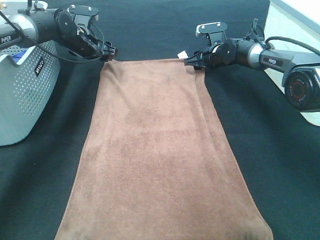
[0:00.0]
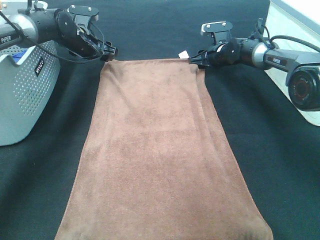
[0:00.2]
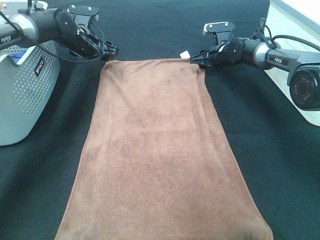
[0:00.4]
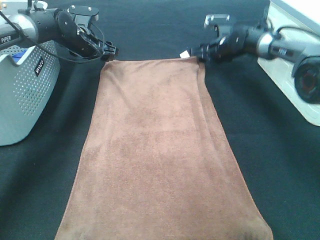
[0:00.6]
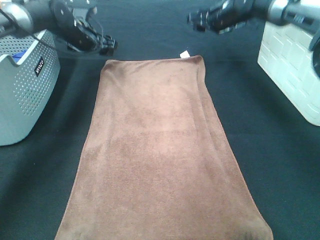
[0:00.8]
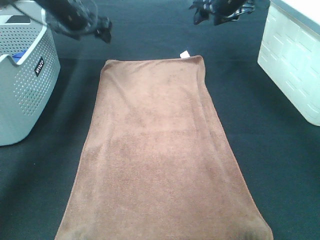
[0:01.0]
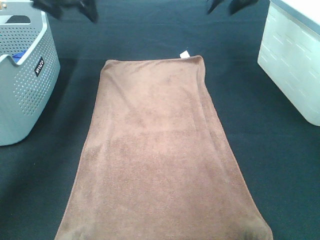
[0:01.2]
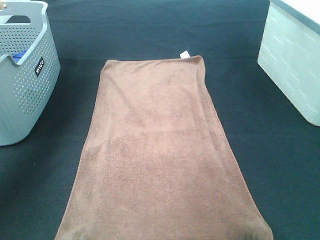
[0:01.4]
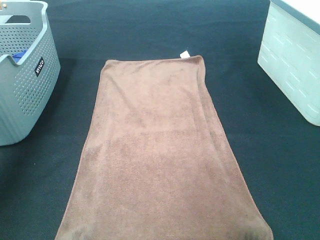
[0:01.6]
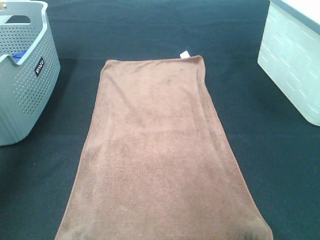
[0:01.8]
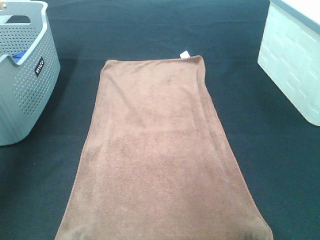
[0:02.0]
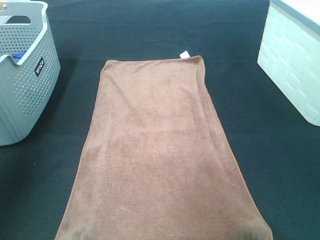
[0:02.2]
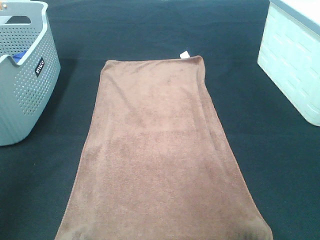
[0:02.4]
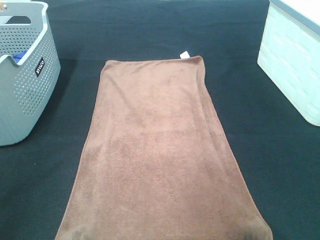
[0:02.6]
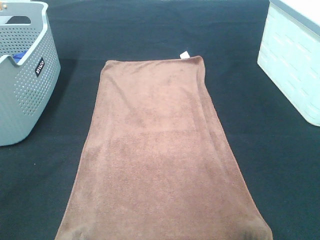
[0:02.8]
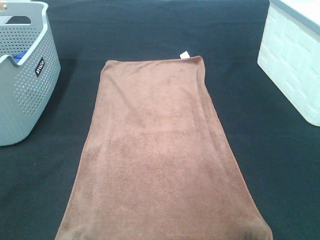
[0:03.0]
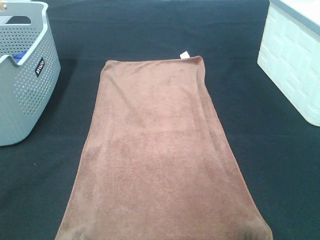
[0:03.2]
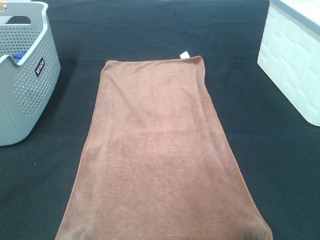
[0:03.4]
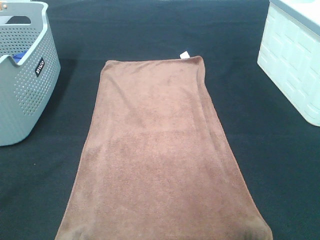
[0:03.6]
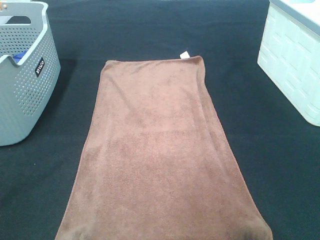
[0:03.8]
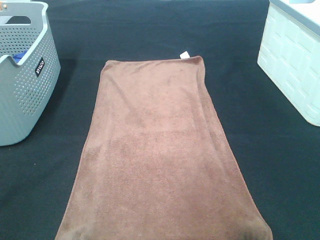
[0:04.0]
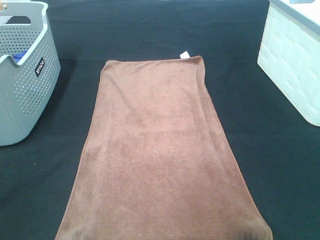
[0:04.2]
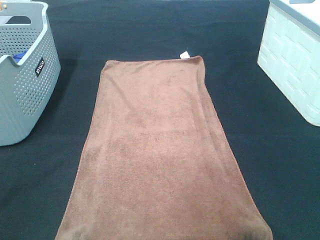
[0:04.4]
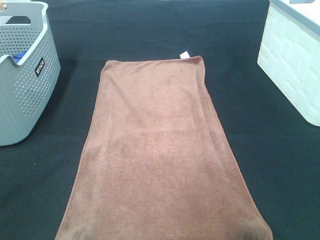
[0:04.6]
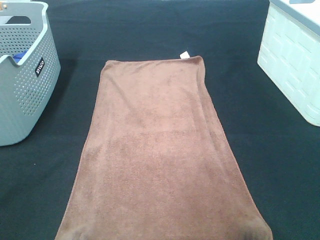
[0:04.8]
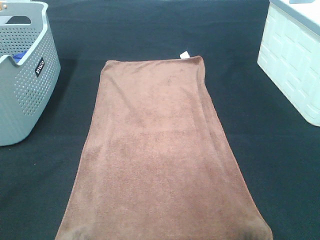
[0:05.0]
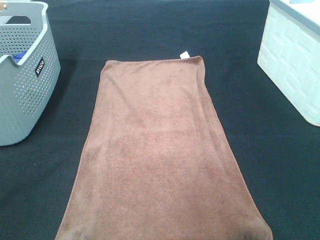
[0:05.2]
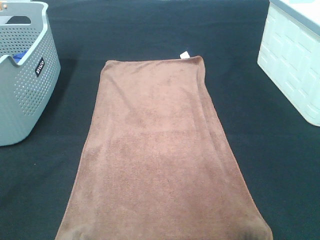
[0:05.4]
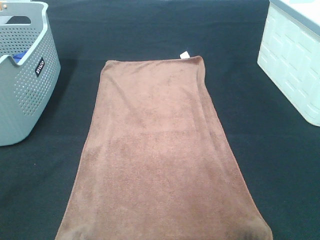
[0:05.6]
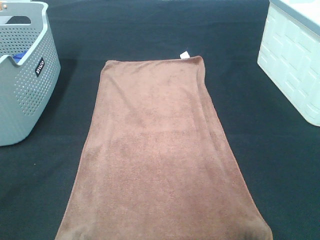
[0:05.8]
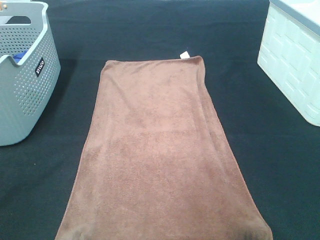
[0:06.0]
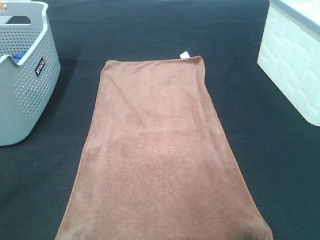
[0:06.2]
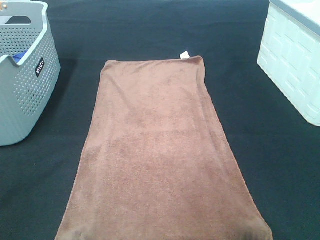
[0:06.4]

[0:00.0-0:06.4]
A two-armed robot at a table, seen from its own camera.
Task of the whole recording: Remove the towel and place it.
0:00.0 to 0:01.6: The right gripper goes roughly 35 cm upward and backward. The left gripper moves upward, to the left and backward, about 30 cm.
0:01.6 to 0:03.2: The two grippers go some 50 cm backward.
0:04.8 to 0:06.4: Both grippers stay about where they are.

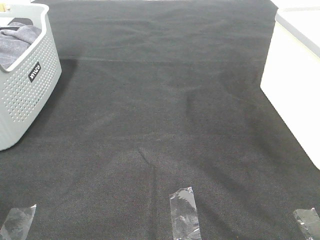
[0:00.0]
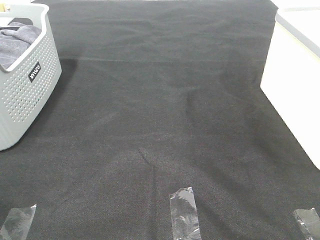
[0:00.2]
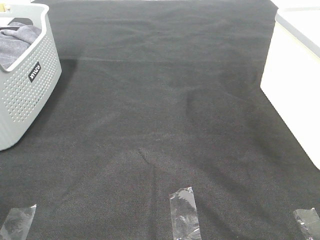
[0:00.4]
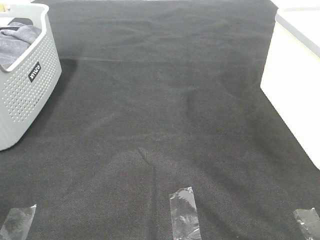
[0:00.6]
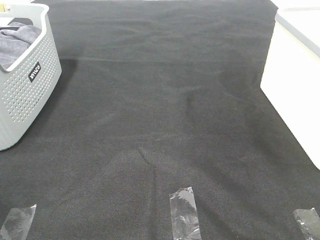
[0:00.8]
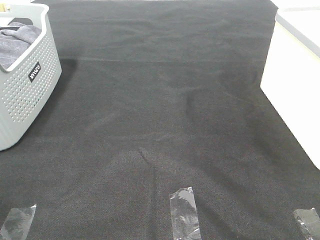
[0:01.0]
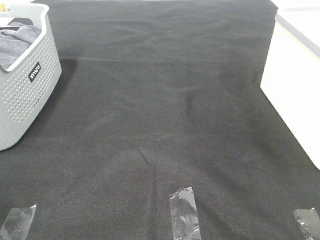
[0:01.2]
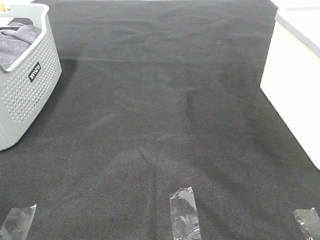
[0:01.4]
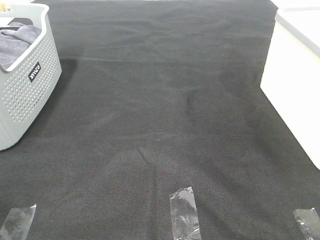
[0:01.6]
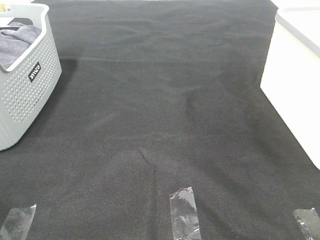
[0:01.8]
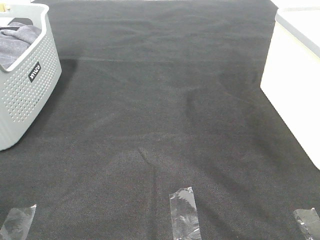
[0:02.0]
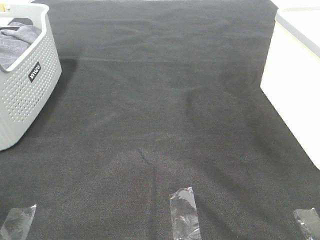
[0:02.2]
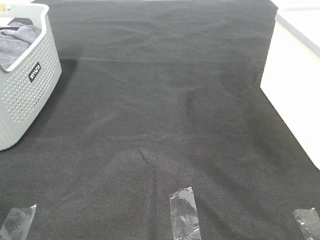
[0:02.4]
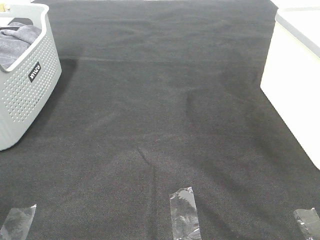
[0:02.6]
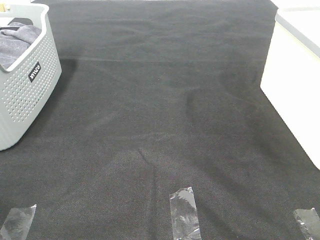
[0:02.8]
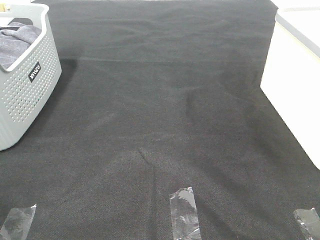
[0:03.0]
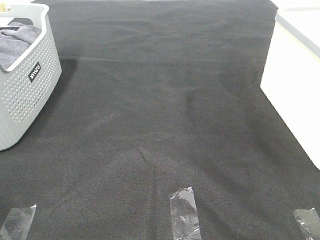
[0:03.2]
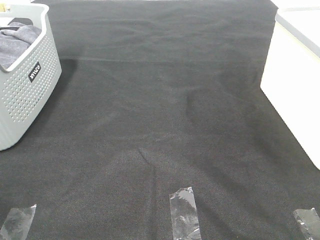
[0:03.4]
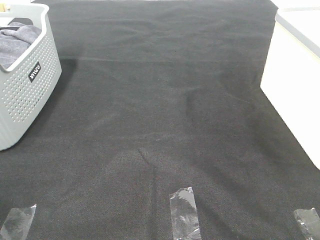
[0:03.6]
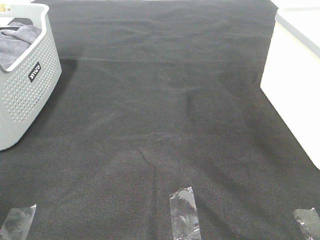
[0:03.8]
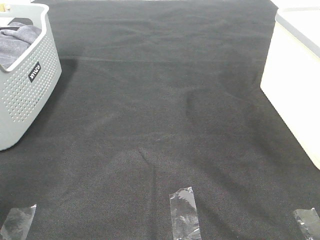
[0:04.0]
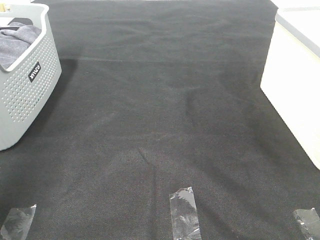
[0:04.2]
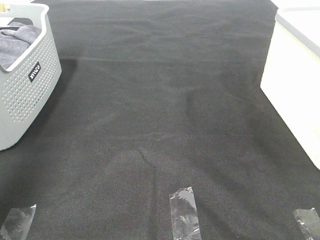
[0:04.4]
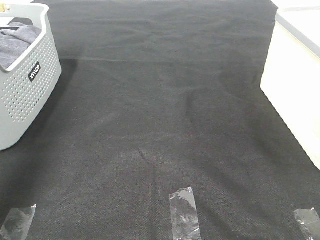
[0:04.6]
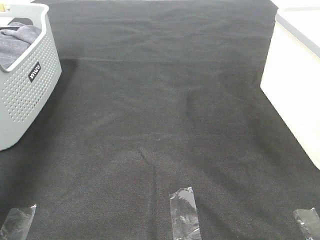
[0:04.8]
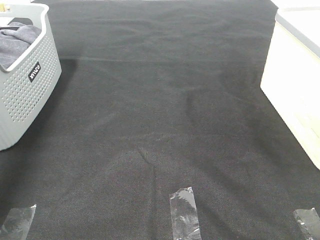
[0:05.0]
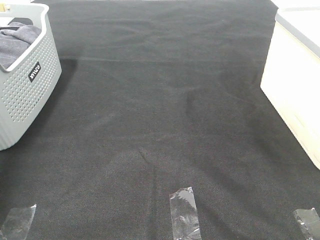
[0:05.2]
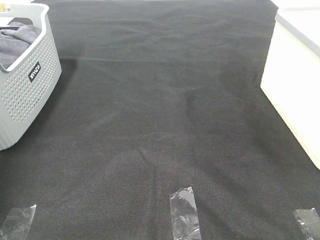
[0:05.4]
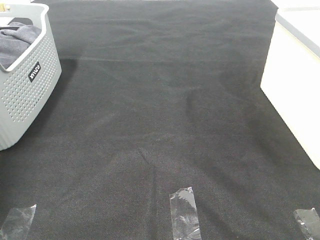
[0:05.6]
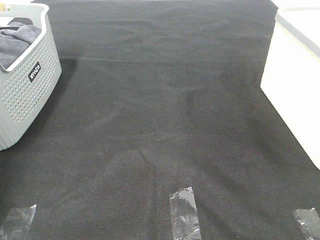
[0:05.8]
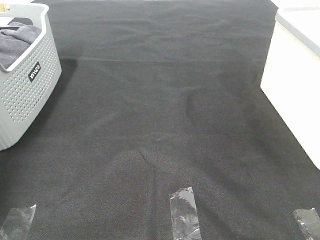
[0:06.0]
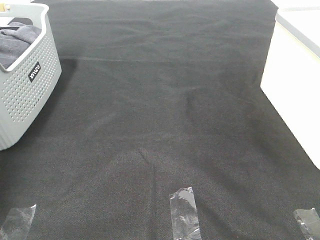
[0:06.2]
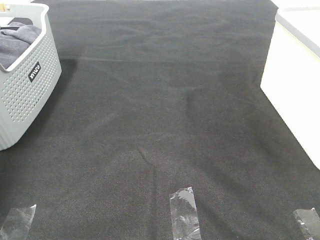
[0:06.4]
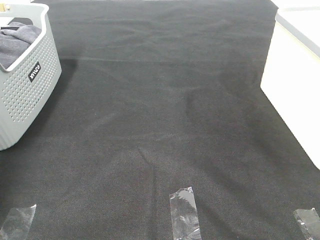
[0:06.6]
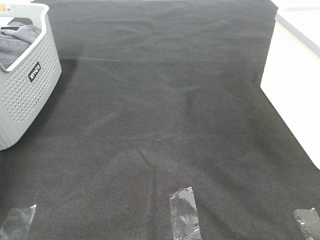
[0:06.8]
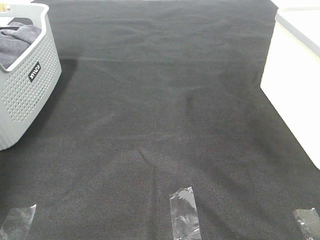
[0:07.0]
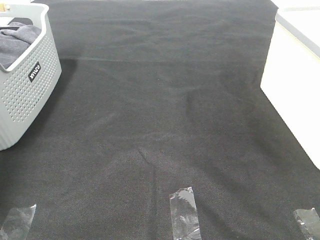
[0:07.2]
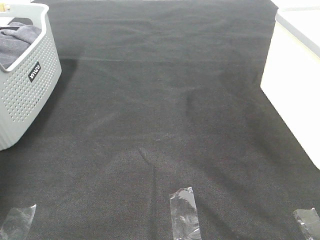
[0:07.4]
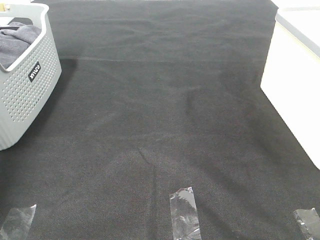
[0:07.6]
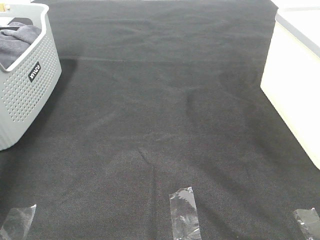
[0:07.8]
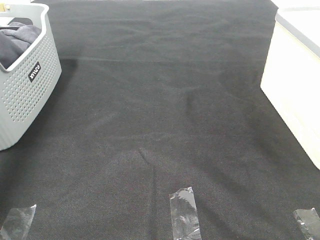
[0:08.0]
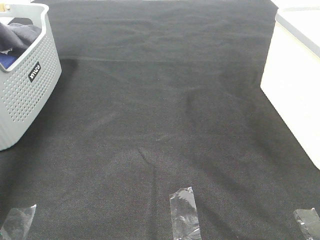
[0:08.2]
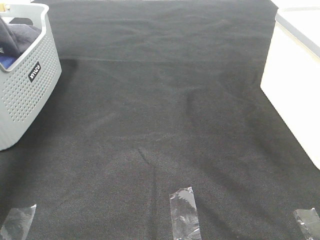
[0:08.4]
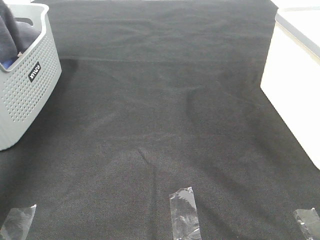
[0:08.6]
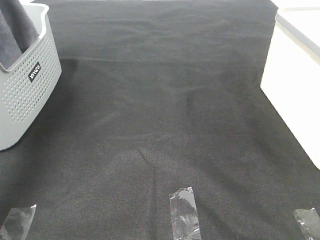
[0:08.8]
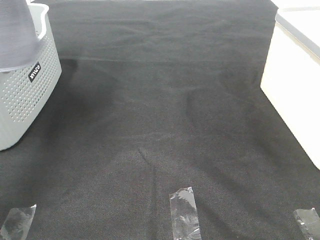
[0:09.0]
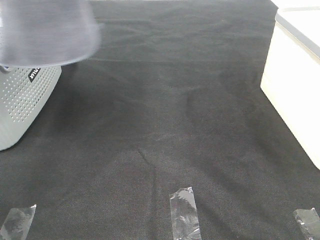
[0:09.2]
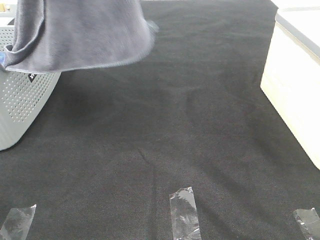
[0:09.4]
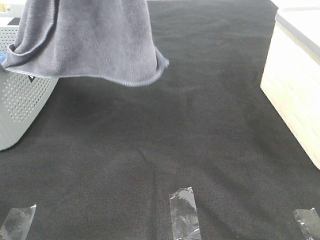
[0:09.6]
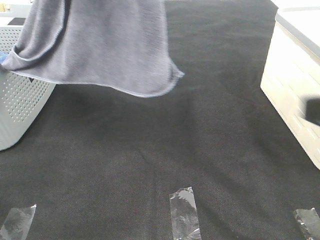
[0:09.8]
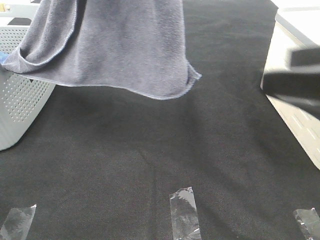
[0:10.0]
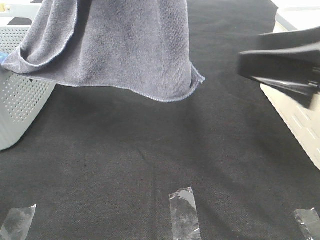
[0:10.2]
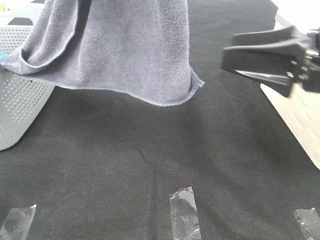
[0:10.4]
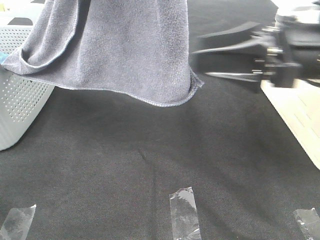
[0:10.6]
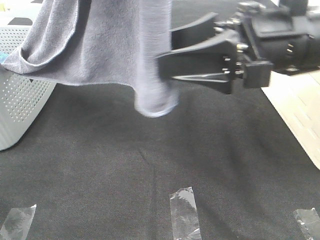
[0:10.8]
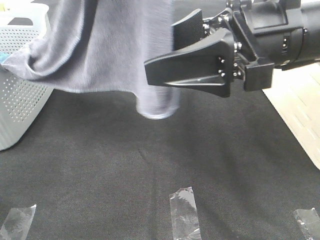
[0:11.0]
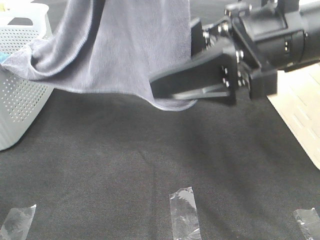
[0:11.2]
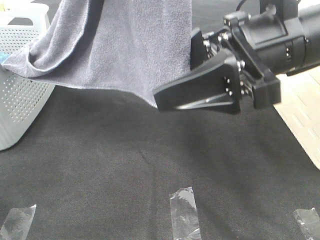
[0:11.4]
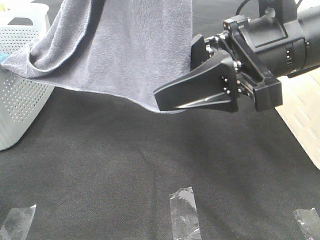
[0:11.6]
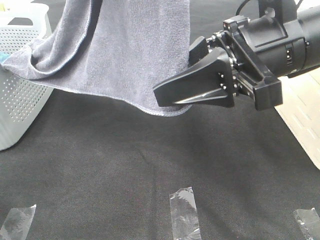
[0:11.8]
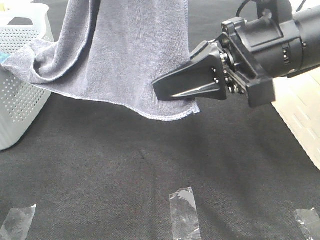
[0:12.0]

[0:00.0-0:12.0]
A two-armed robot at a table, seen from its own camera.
Task of the whole recording: Remove the towel and place it.
0:00.0 to 0:03.0: Both grippers stay about where they are.
0:03.0 to 0:04.4: The left gripper goes roughly 25 cm forward and upward.
0:04.4 to 0:06.0: The left gripper is displaced forward and downward by some 35 cm.
0:07.6 to 0:09.0: The left gripper moves upward, backward and to the right, some 35 cm.
0:09.0 to 0:10.4: The left gripper goes some 15 cm to the right and backward; the right gripper moves forward, about 25 cm.
0:10.4 to 0:12.0: The right gripper travels to the left by roughly 10 cm, and closes.

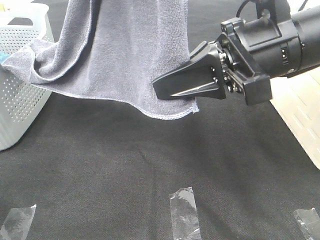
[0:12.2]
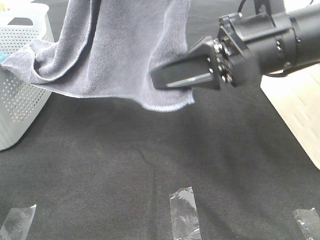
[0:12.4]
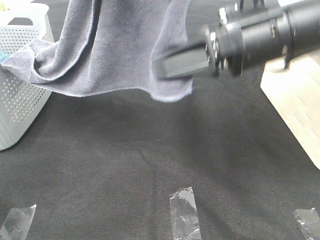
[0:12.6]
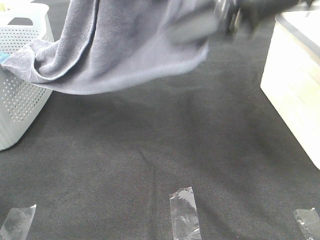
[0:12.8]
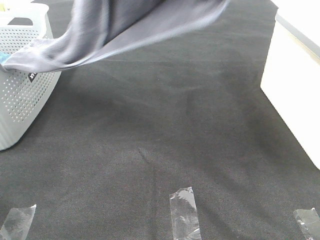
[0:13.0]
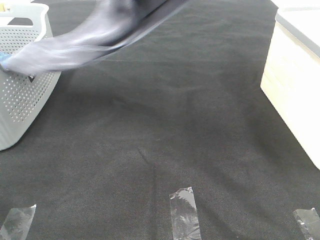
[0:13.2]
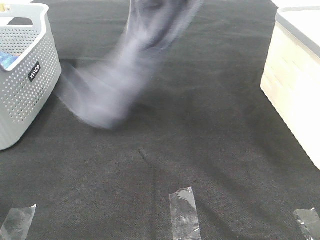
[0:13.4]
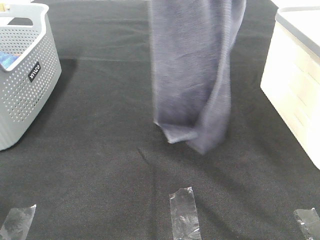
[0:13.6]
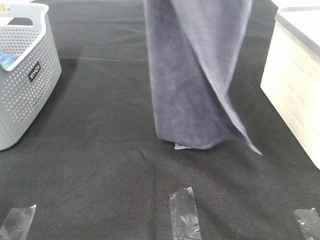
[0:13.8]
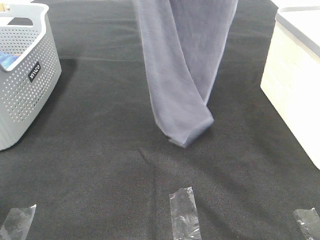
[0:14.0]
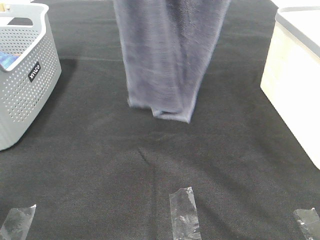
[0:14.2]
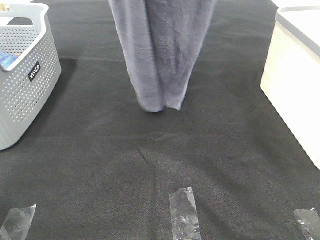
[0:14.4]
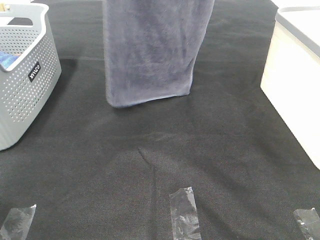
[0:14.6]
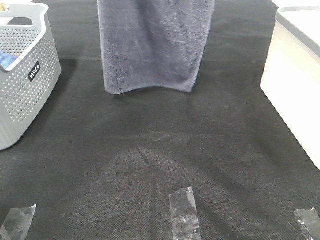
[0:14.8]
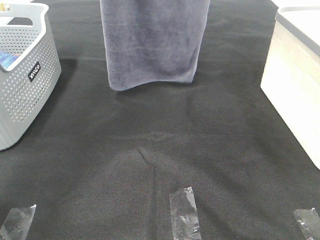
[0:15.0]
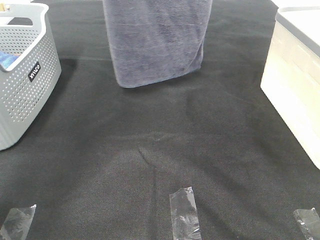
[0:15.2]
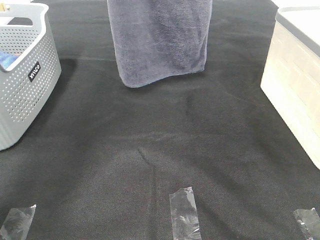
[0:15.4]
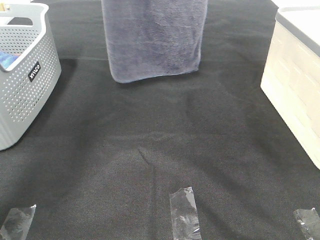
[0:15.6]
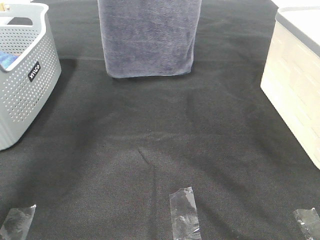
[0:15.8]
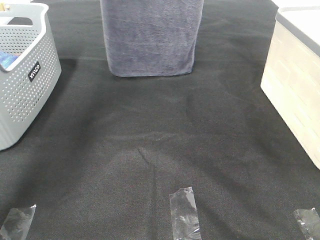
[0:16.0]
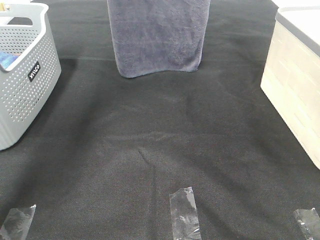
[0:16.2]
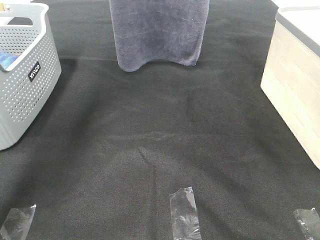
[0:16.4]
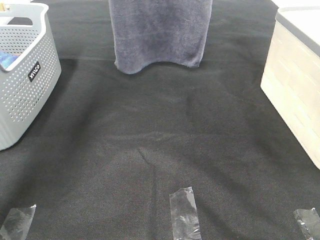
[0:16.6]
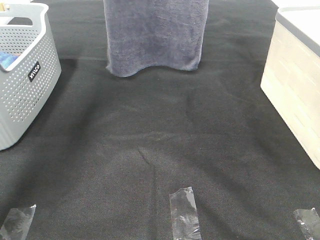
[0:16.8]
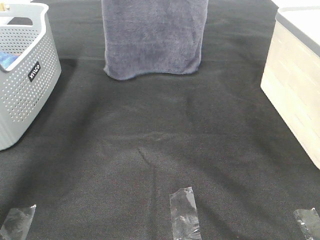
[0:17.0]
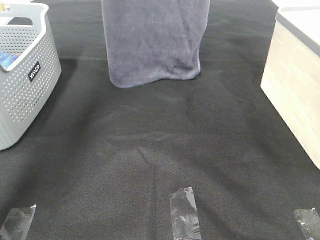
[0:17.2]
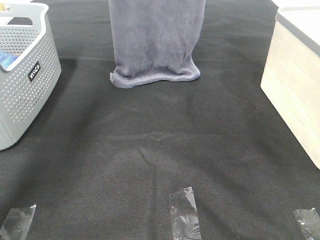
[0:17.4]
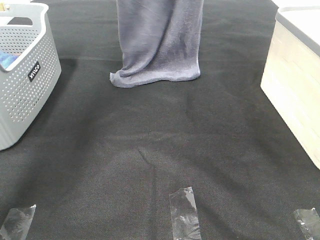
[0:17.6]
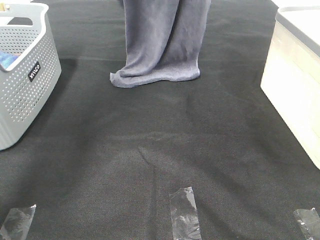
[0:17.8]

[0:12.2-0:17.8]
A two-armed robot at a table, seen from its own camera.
Task of the whole recording: Remove the towel and place it.
0:12.2 to 0:13.6: The left gripper is displaced forward by about 5 cm, while the right gripper goes approximately 25 cm upward.
0:13.6 to 0:15.0: The left gripper moves forward and to the left, some 15 cm. Meanwhile the right gripper goes some 10 cm forward.
0:15.0 to 0:16.4: Both grippers move forward, approximately 10 cm.
